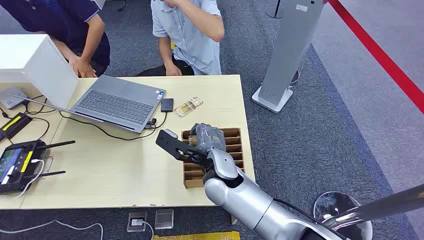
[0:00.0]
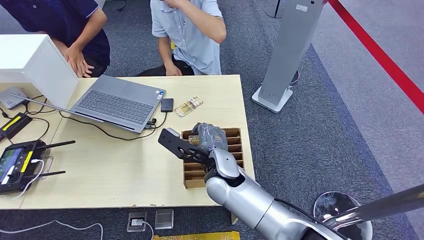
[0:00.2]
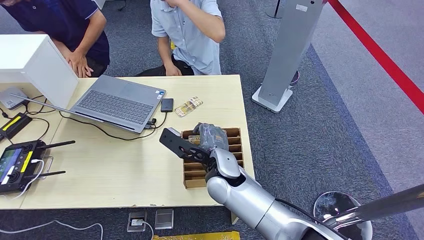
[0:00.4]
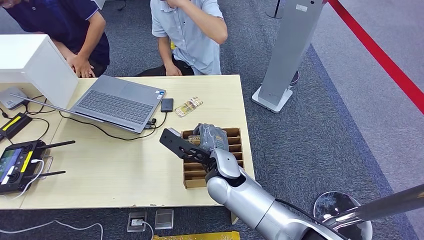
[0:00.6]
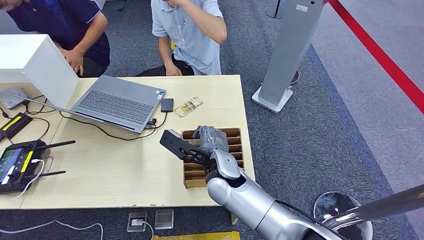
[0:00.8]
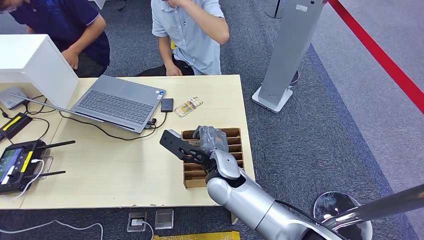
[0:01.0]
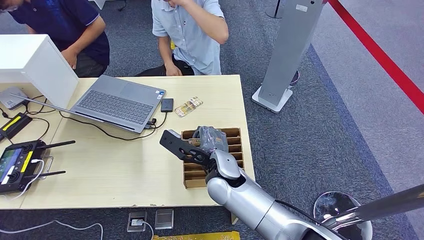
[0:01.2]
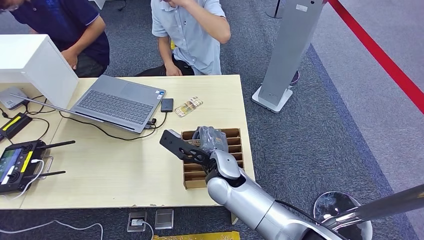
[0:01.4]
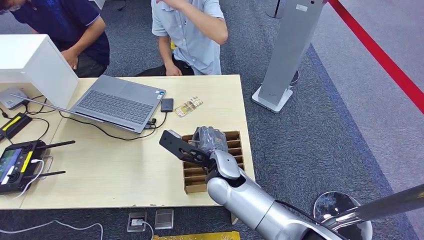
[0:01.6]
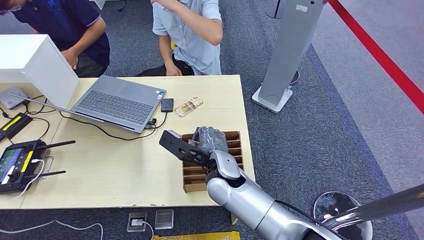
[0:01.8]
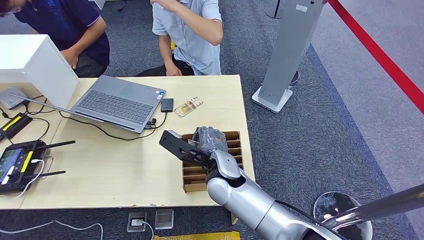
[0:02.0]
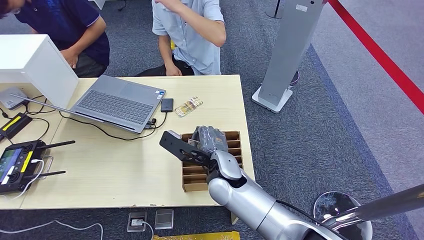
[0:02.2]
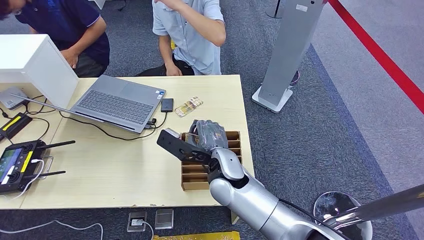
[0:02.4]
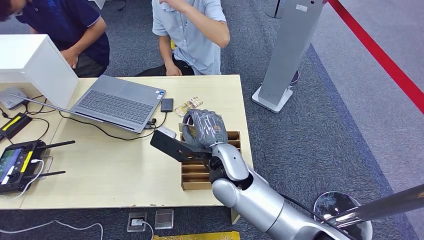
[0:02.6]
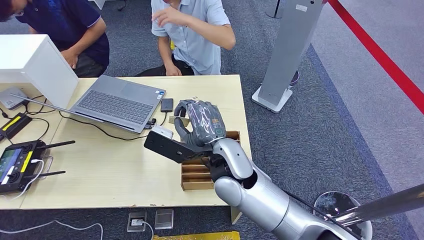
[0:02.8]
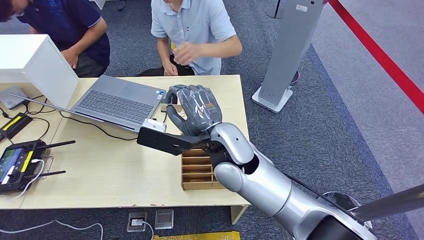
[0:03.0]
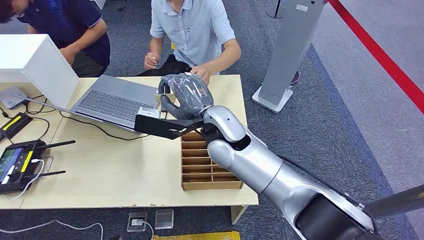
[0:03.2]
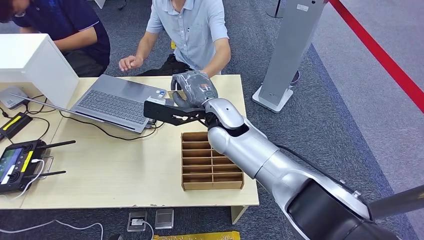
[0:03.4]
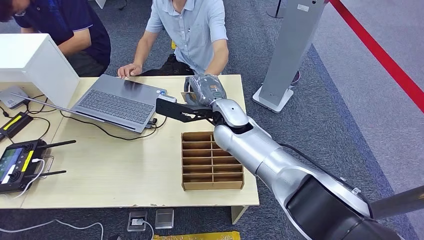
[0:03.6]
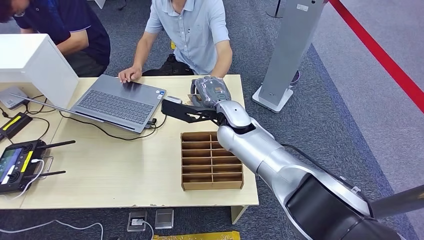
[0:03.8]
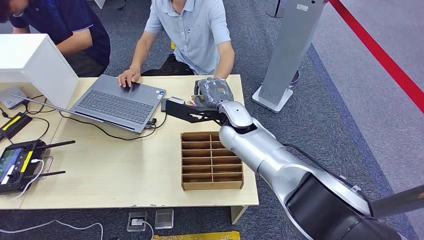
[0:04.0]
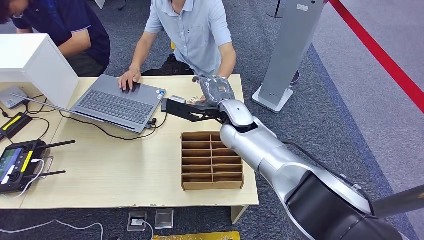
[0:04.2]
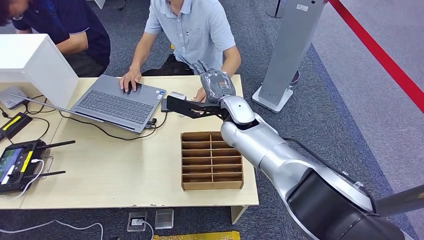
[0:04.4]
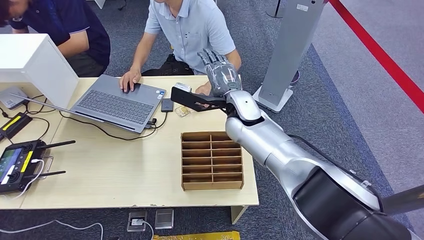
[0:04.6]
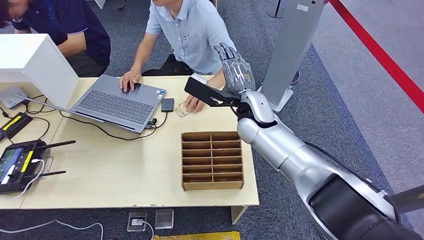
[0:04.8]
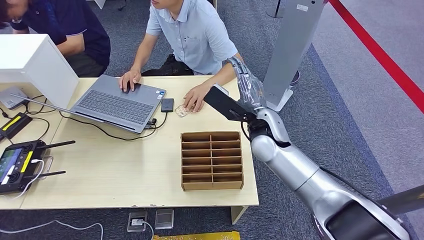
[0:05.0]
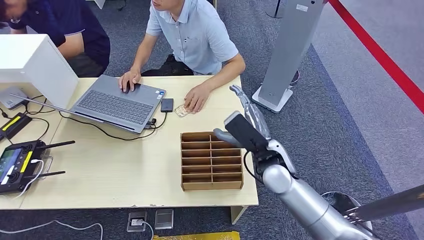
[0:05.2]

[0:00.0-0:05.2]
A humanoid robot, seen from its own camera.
Step, 0:00.0 to 0:02.6: Pick up the key card from the card box.
Step, 0:03.2 to 0:05.0: Hand the key card to the target.
0:03.4 to 0:05.2: The right hand travels to the right, downward and backward by about 15 cm.
